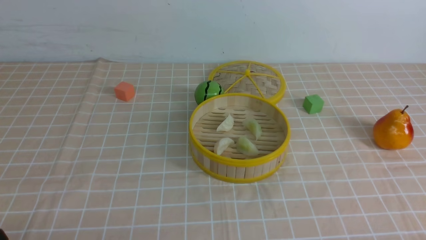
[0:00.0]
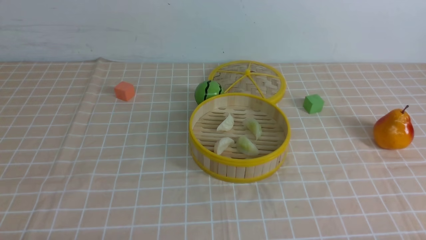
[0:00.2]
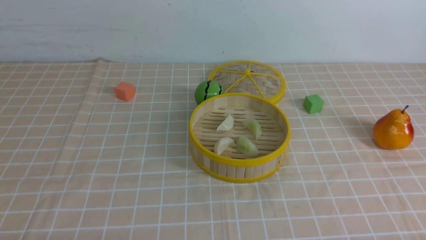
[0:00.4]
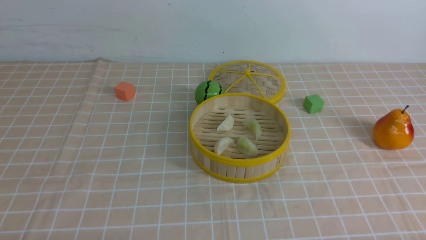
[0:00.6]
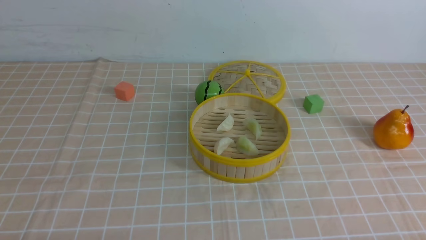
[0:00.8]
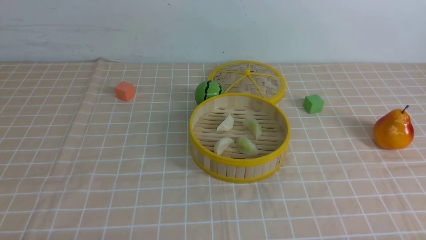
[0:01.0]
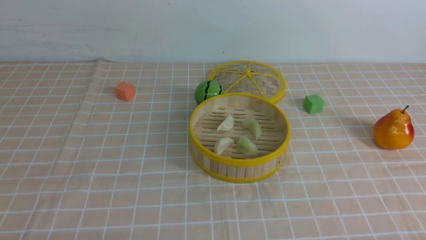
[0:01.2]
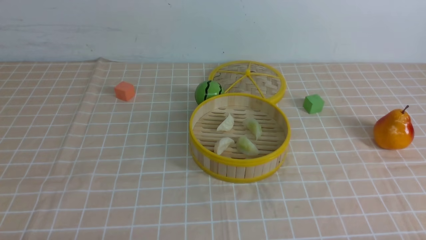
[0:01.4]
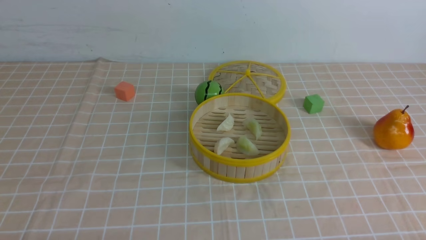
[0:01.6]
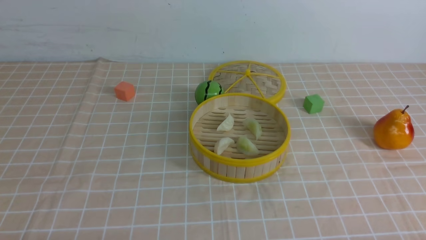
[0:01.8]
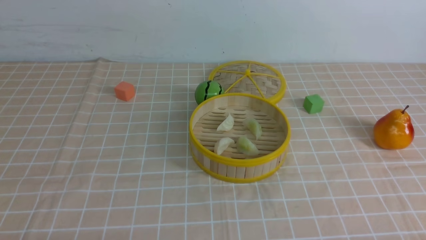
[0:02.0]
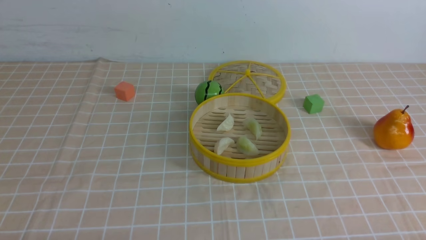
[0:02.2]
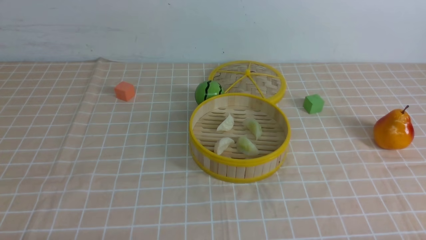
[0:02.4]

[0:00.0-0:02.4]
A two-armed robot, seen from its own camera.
Task of the whole recording: put the dumplings into the steamer on the table with the brown tablecloth.
0:01.2 to 0:02.4: Both grippers stay about where they are.

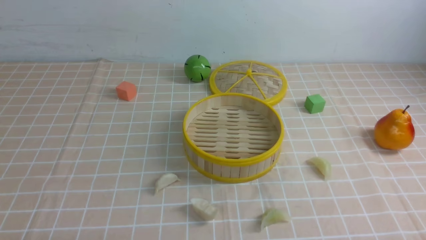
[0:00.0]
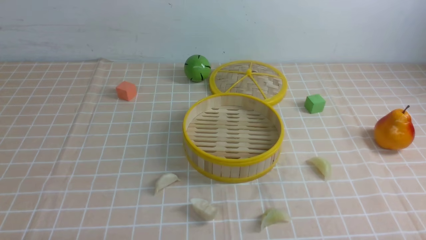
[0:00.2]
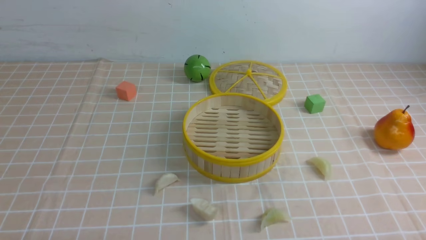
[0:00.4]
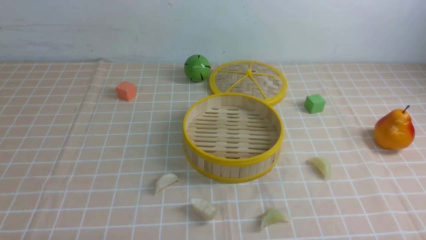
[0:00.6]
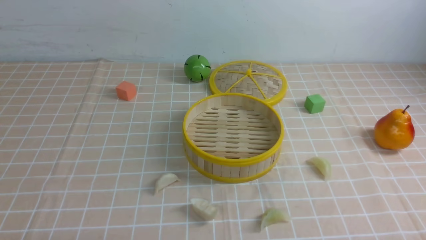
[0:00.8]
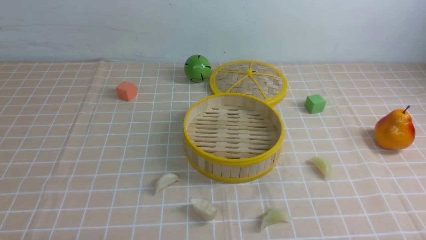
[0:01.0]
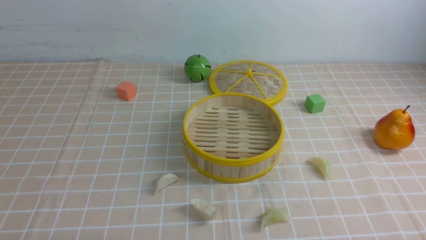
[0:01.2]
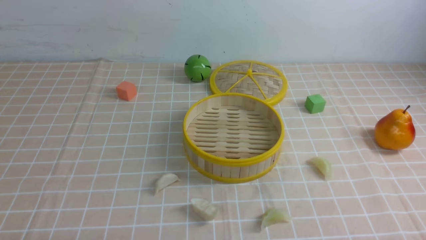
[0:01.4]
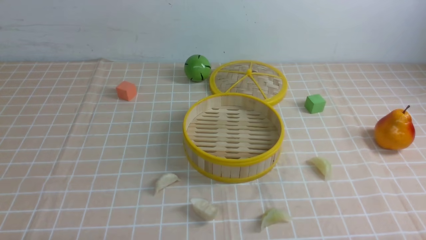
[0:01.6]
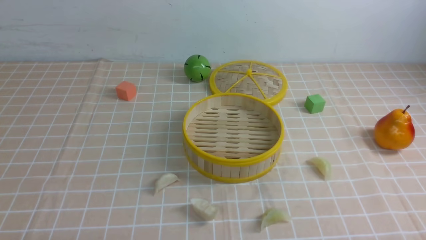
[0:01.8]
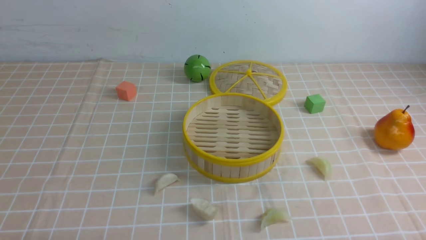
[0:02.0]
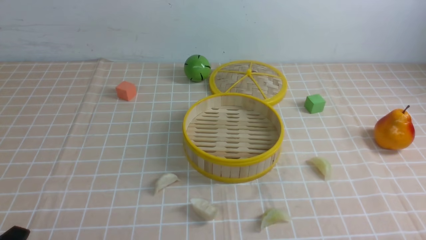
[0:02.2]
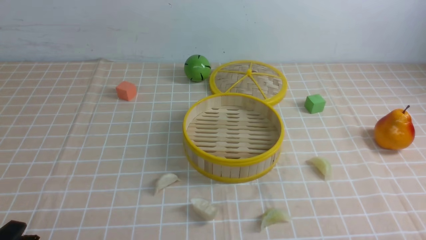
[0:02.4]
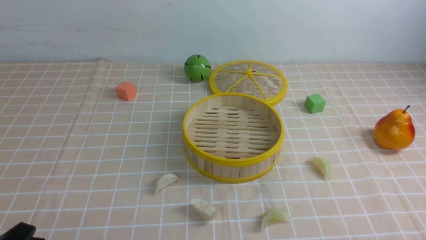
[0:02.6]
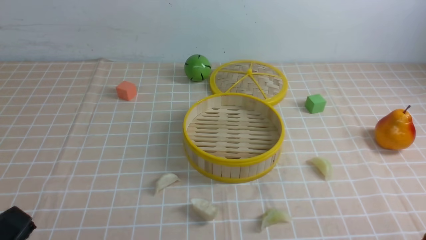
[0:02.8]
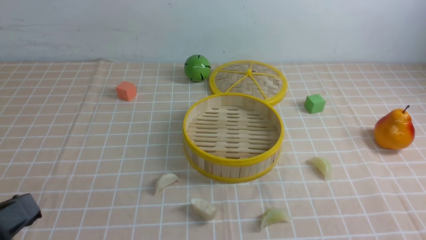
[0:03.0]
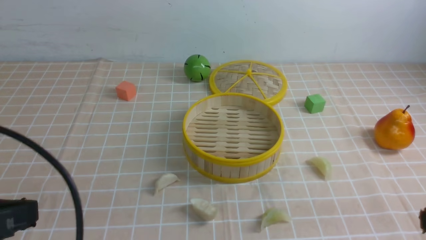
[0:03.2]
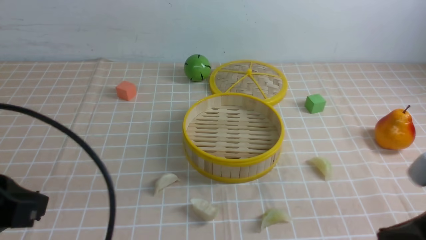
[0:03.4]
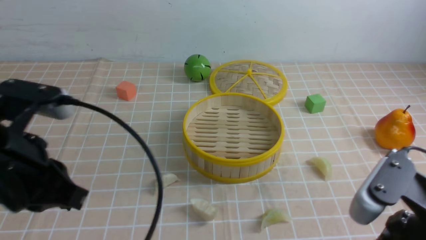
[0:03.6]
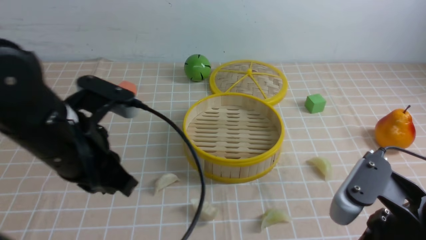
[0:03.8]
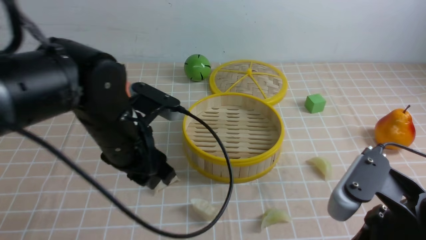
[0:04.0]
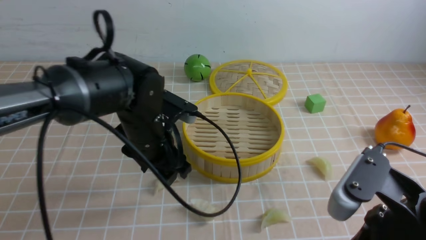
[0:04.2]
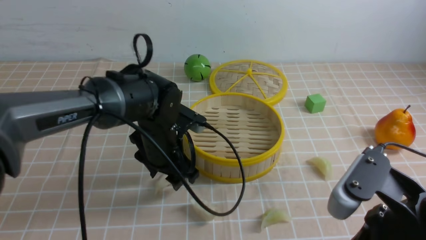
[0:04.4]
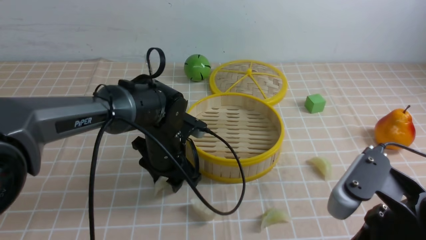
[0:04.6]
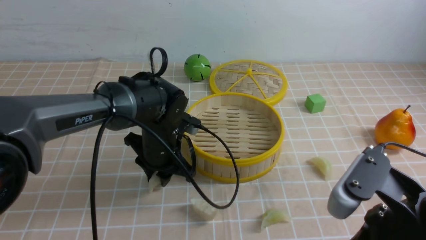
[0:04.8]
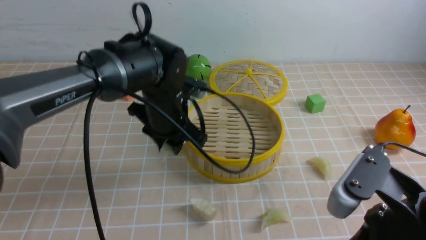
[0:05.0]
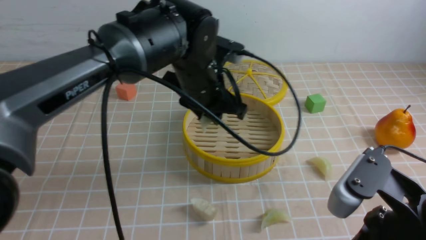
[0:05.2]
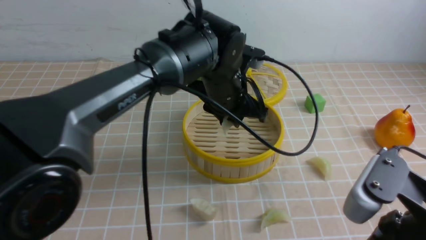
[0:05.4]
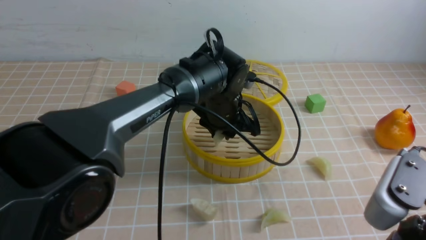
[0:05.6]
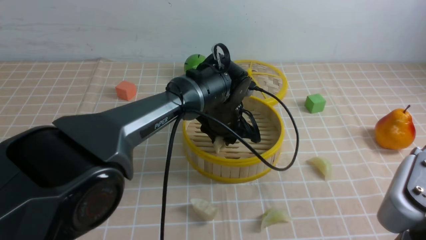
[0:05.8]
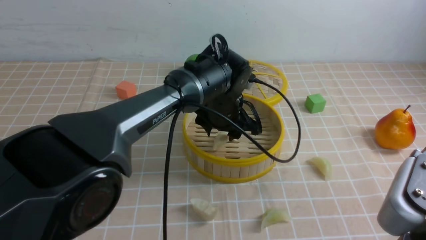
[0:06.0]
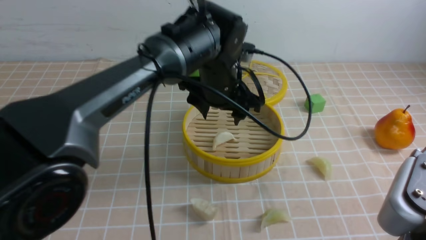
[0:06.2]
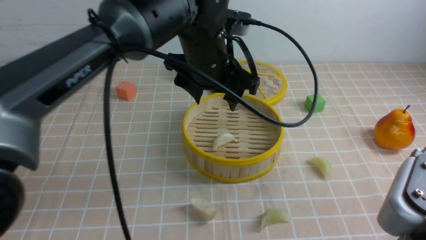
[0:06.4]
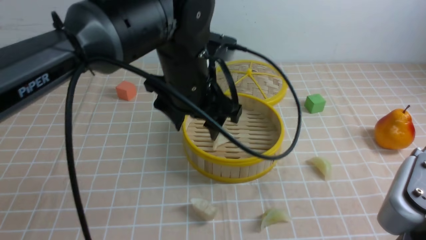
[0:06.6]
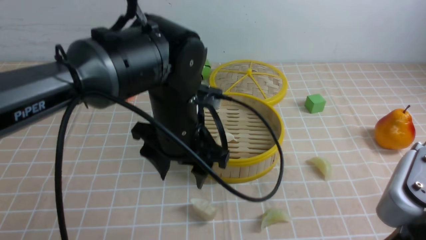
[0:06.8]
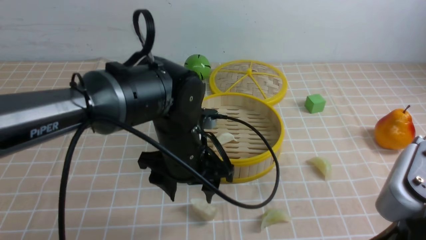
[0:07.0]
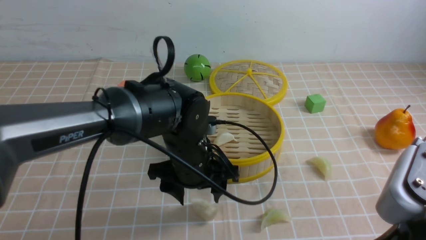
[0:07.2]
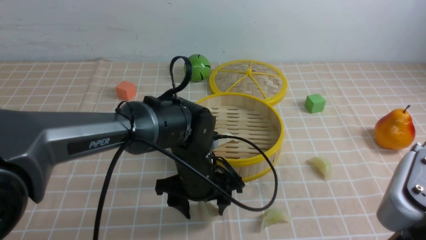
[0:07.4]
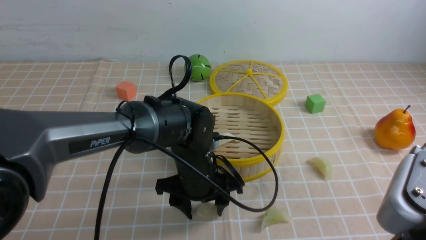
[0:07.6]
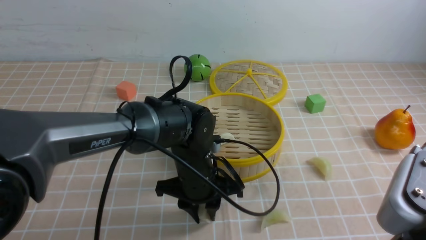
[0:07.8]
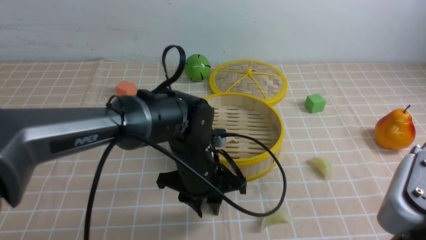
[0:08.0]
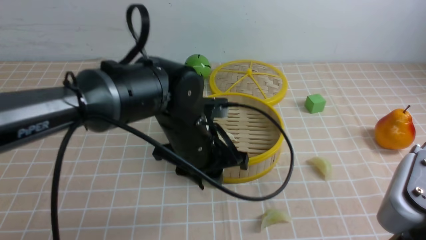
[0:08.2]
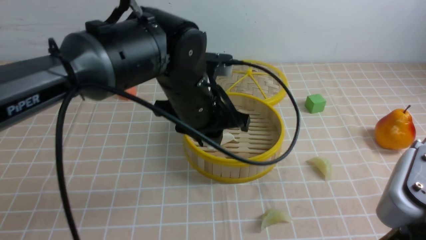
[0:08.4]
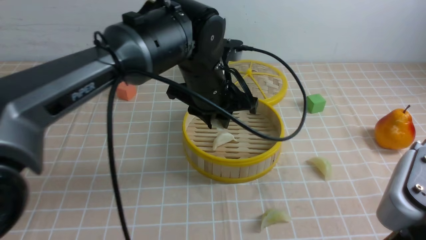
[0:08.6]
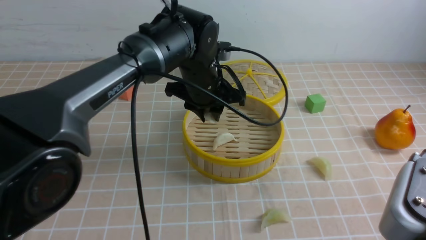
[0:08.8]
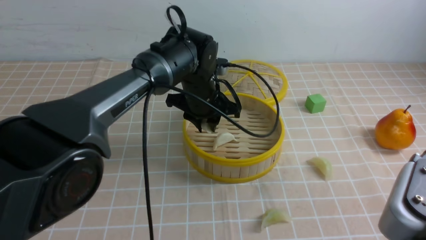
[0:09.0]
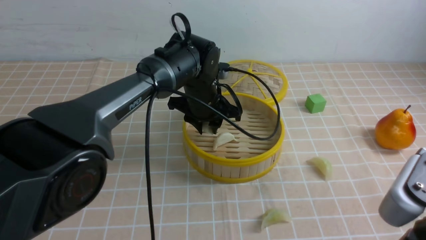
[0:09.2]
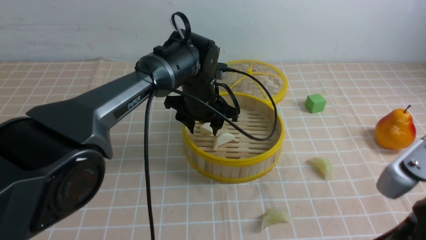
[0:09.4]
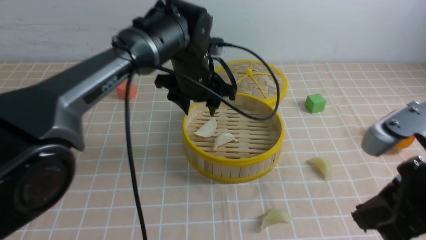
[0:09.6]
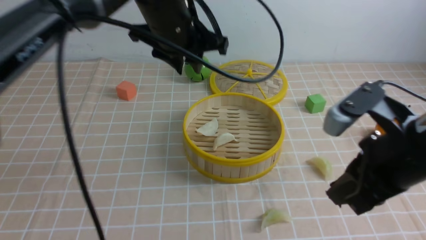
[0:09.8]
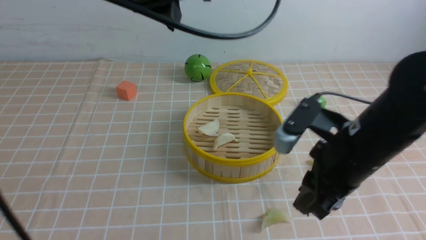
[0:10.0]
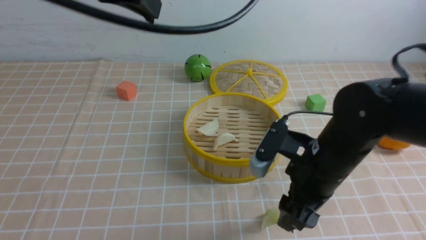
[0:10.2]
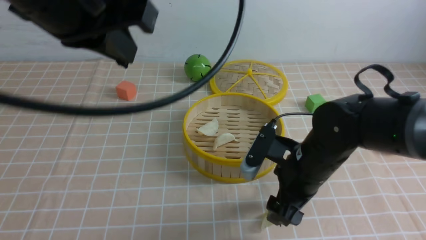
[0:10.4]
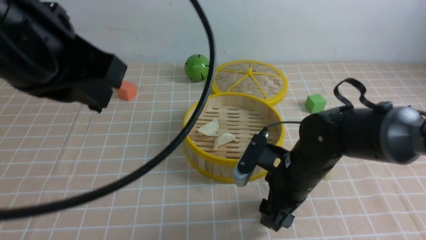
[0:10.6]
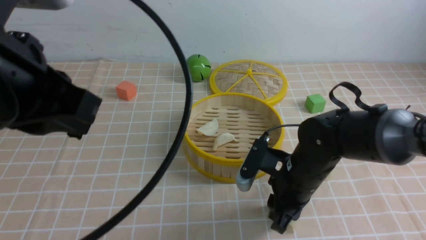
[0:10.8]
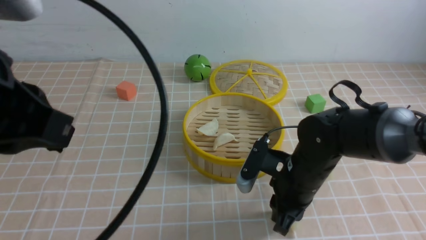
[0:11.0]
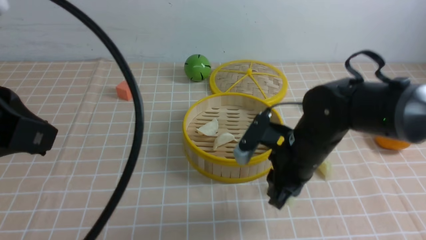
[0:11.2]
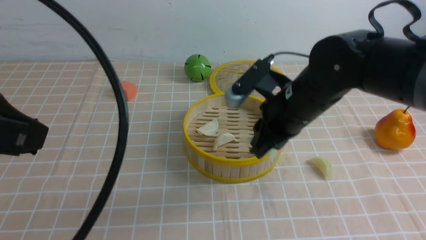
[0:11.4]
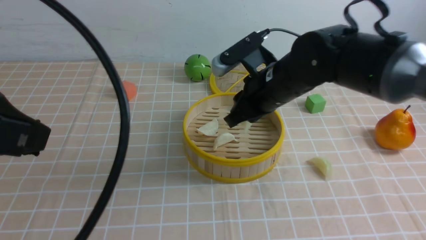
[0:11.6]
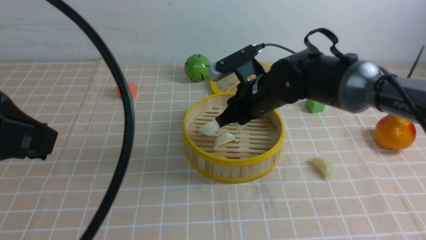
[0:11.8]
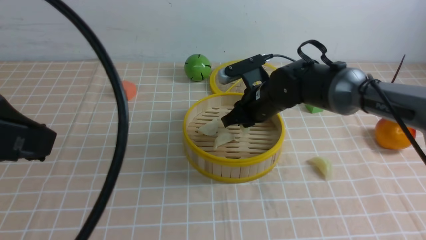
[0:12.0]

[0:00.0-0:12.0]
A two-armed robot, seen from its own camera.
Task of the whole recording: put the dumplings into the steamer on the table with the brown tablecloth.
Step, 0:00.0 to 0:04.6: use the left arm to grab a dumpling.
Step, 0:04.8 to 0:06.0: use the left arm to put the dumpling into the steamer.
Step, 0:06.4 to 0:07.8: use the left arm to grab a dumpling.
Step, 0:08.0 to 0:09.4: use the left arm to put the dumpling into the steamer.
Step, 0:09.6 to 0:10.8: use the right arm to grab a dumpling.
0:01.6 to 0:03.0: The left gripper is displaced upward by approximately 10 cm.
0:03.0 to 0:04.4: The right gripper goes some 10 cm to the left and forward. The left gripper moves forward and to the right, some 35 cm, and opens up.
0:04.4 to 0:06.0: The left gripper heads to the right and forward, covering some 15 cm. The right gripper changes place by some 5 cm.
0:06.0 to 0:07.6: The left gripper travels backward by about 10 cm, and travels upward and back again, approximately 10 cm each way.
0:07.6 to 0:09.0: The left gripper heads forward and upward, covering about 15 cm, and closes.
0:09.0 to 0:10.4: The right gripper travels forward, downward and to the left by some 20 cm, and opens up; the left gripper travels upward, backward and to the left by roughly 30 cm, and closes its fingers.
0:10.4 to 0:12.0: The right gripper shifts roughly 15 cm forward, and closes. Meanwhile the left gripper shifts roughly 15 cm backward and to the left.

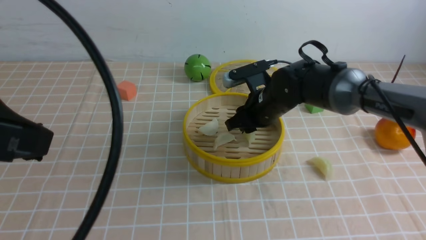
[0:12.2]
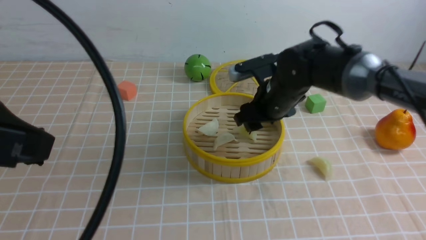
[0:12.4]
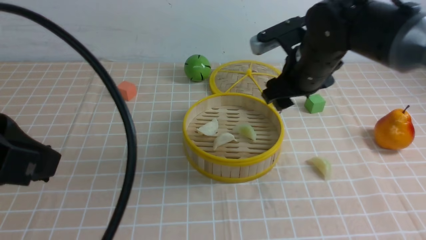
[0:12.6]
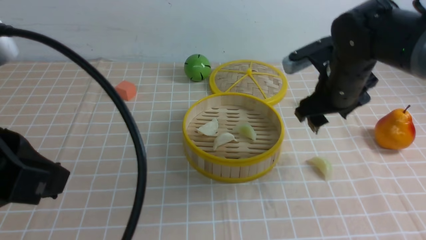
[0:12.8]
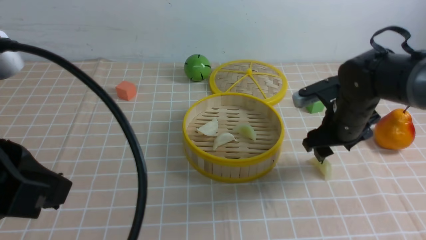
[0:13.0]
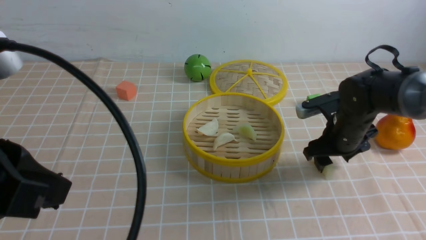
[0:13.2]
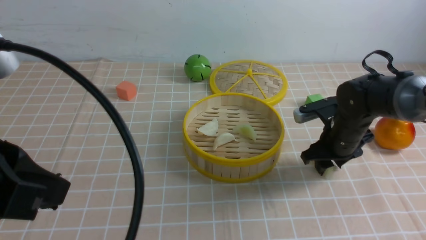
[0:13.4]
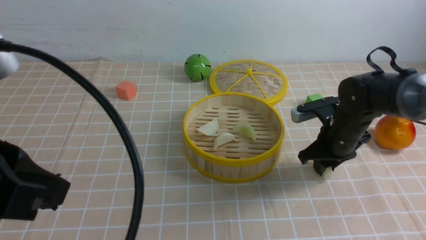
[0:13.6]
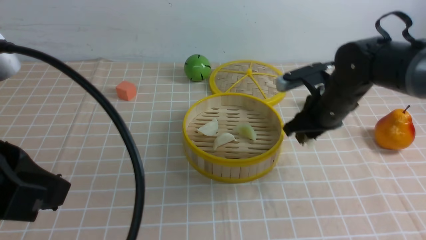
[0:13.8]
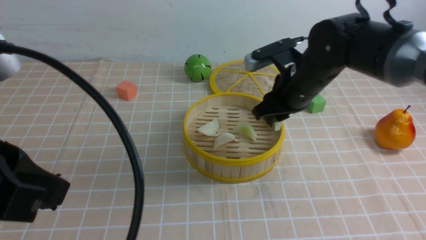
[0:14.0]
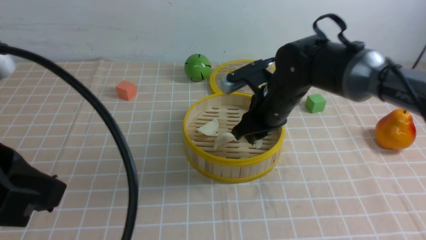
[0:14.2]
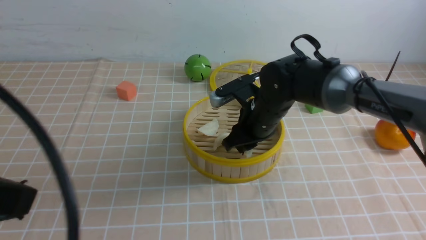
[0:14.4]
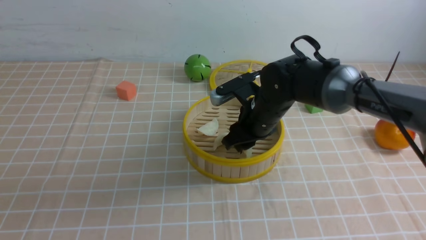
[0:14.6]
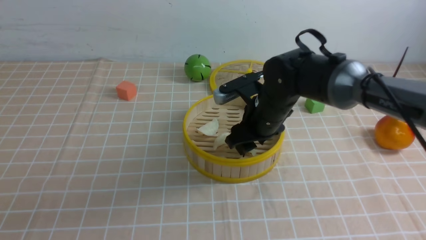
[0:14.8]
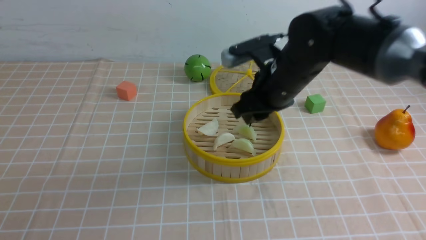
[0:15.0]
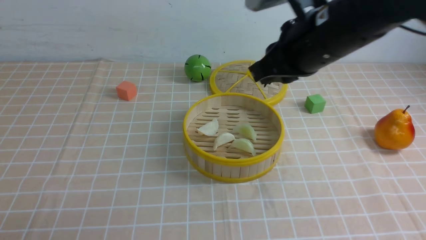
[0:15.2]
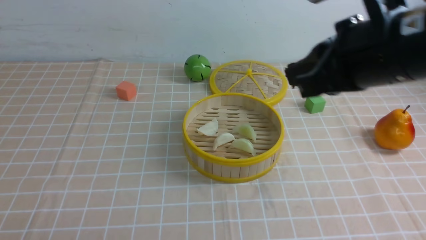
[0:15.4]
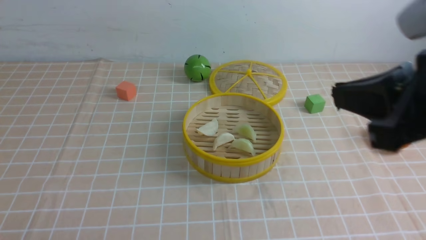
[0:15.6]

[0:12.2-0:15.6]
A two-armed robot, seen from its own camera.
Task of the whole recording: put the dumplings into the steamer on the table with the brown tablecloth.
Step, 0:12.6 to 0:13.4: use the right arm to grab a dumpling.
Step, 0:13.6 to 0:14.8: use the right arm to put the dumpling into the steamer.
0:12.2 to 0:13.8: The right gripper moves to the right, approximately 10 cm, and opens, then closes once more.
0:13.8 to 0:15.6: The left gripper is displaced backward, downward and to the left by approximately 20 cm. Meanwhile the right gripper travels backward and upward by about 30 cm, and closes its fingers.
